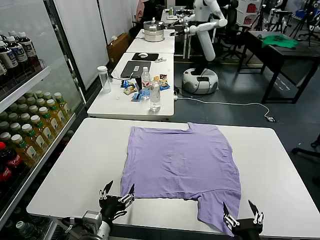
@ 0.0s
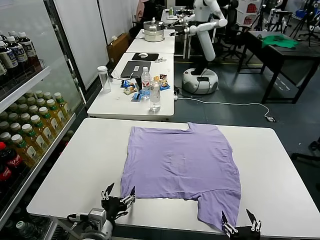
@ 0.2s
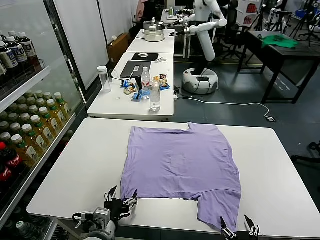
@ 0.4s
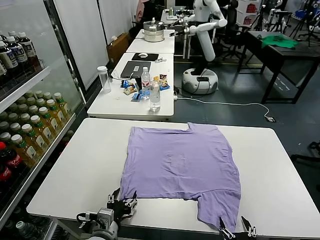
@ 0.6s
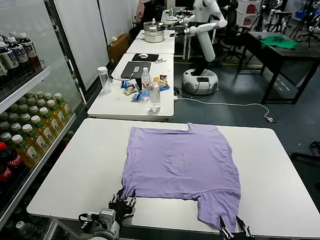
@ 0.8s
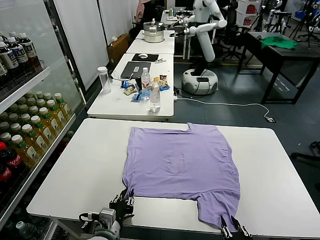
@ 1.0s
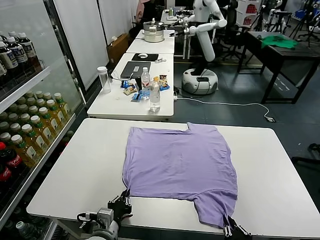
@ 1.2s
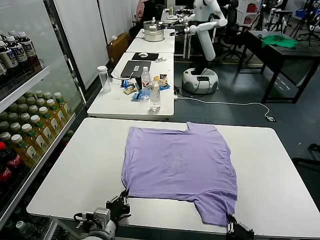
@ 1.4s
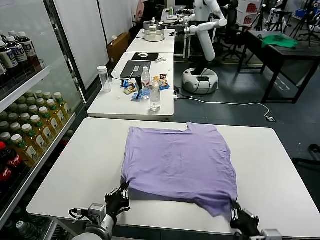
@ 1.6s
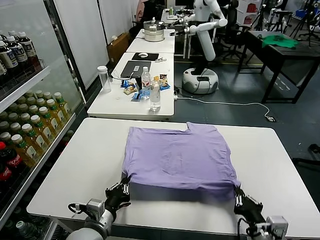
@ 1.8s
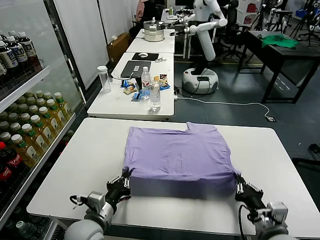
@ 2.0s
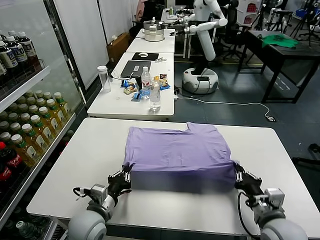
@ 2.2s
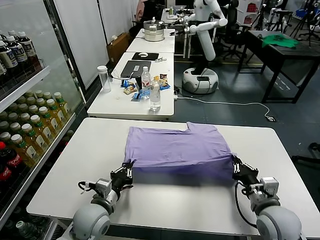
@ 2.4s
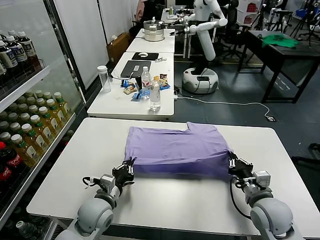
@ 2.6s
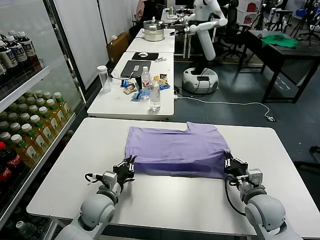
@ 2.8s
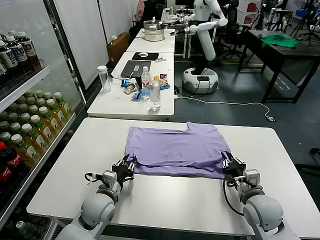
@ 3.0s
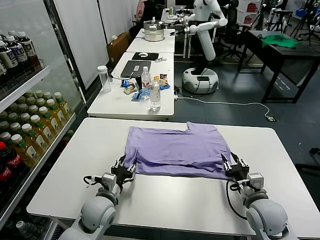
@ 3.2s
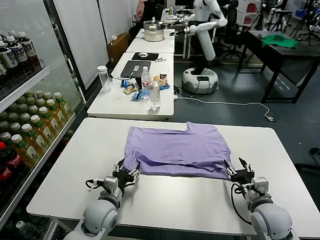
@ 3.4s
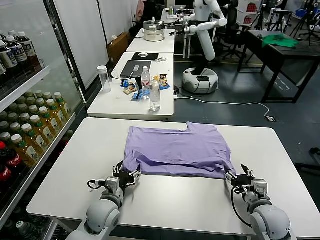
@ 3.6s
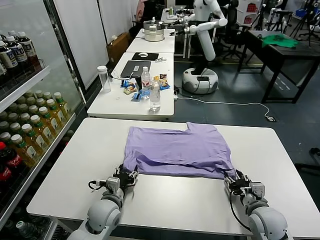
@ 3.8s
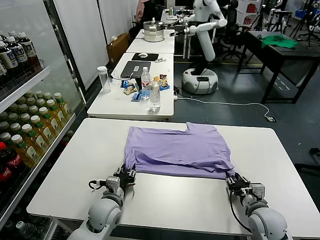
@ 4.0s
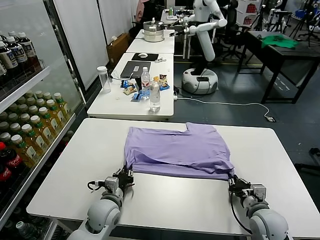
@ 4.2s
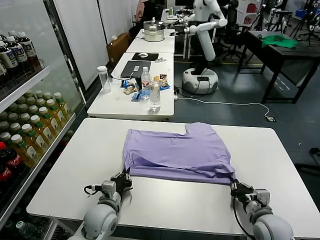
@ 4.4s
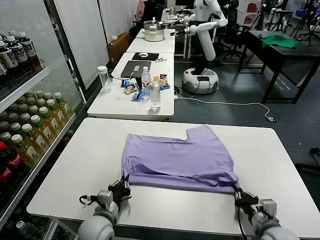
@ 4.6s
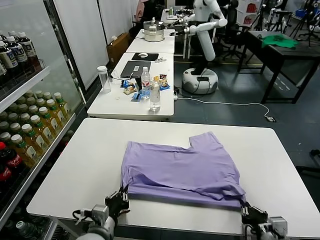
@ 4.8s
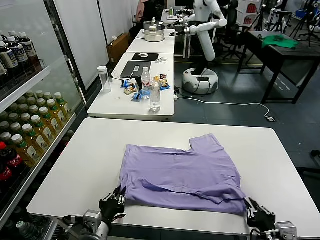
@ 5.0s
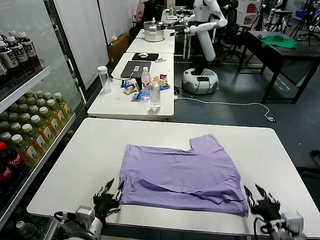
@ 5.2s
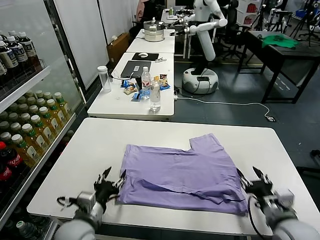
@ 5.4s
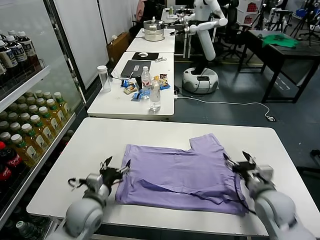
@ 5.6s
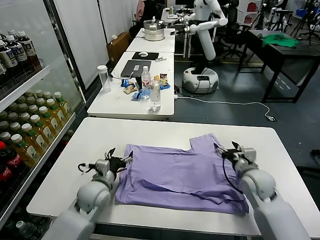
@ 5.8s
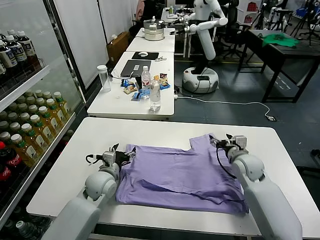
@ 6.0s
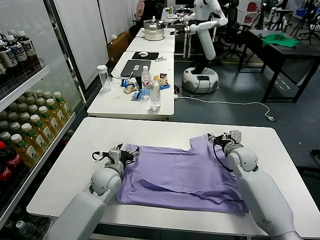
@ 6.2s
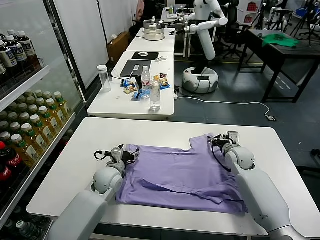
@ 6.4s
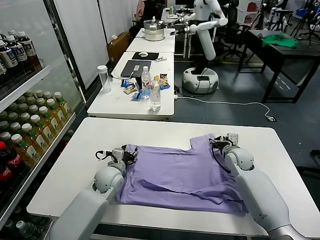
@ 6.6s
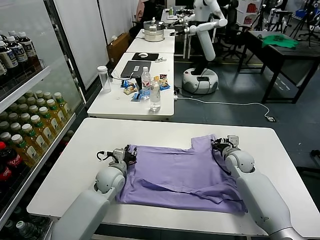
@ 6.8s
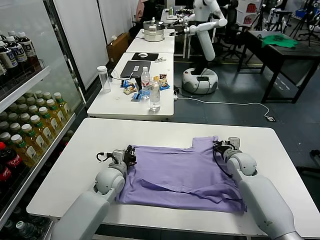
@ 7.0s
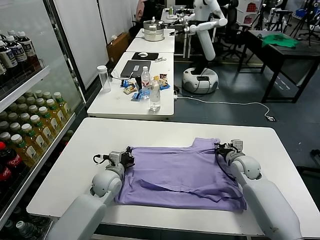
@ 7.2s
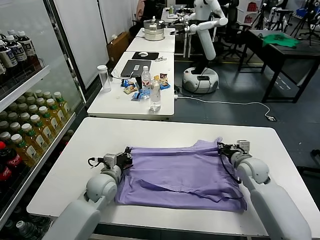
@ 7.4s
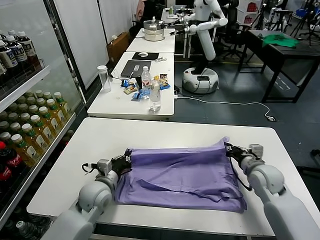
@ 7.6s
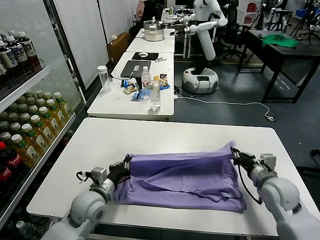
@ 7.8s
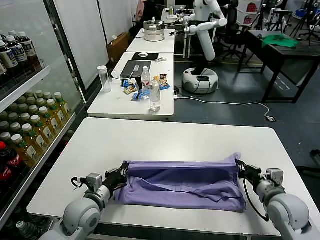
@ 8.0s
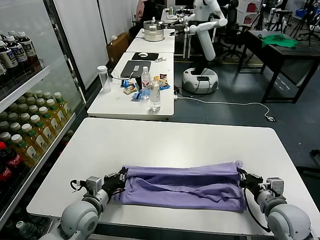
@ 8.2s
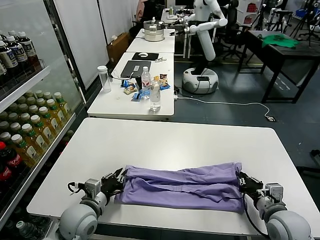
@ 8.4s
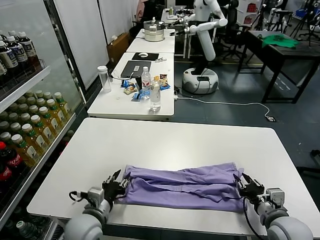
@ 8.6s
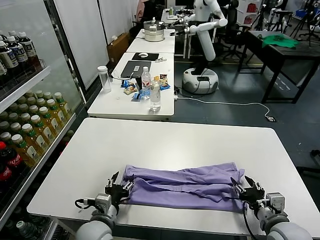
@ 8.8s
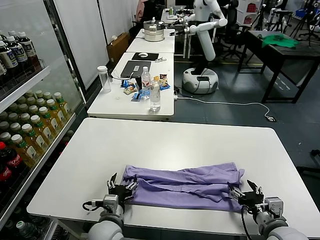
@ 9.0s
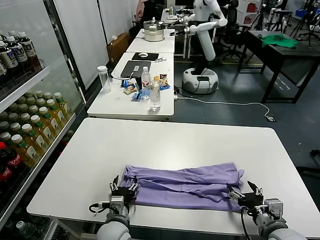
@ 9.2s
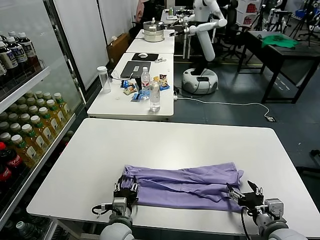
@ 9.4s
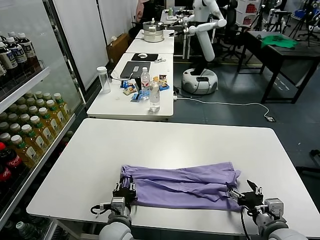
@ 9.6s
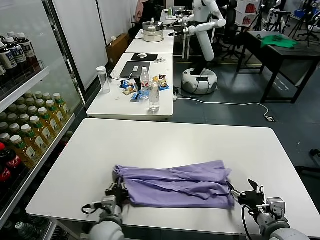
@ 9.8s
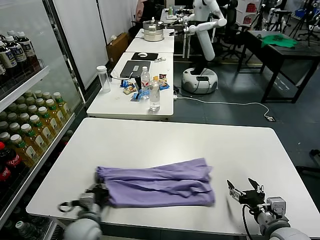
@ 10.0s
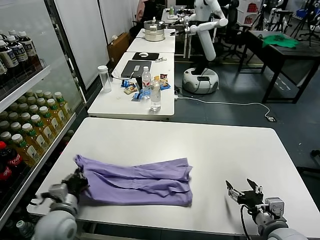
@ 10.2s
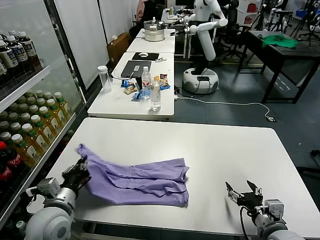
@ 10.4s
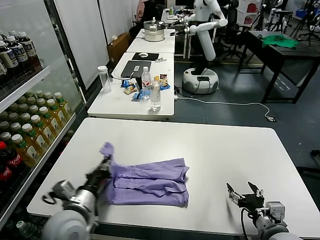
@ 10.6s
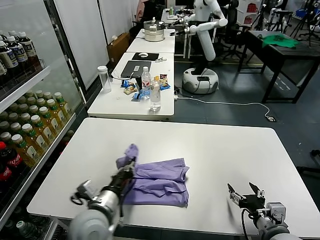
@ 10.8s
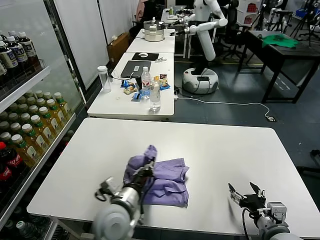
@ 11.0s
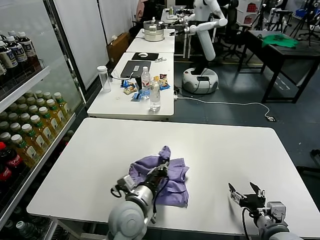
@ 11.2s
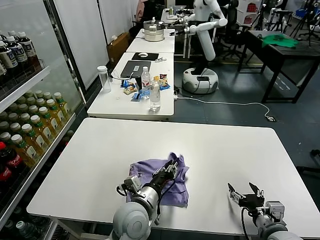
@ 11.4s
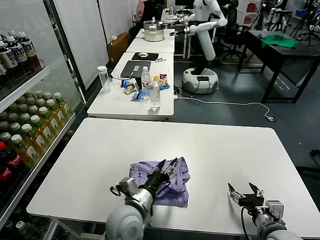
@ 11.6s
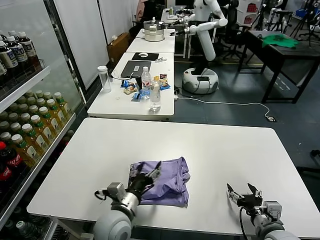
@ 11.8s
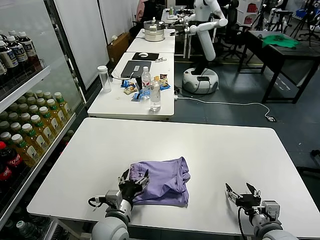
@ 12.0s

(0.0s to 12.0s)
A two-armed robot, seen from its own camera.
Task of the whole recording: fold and organize the clothes.
Step, 0.0s - 1.2s: use both grippers simultaneously to clamp the lower edge of the clothing fabric.
Step, 1.4s - 3.2s: use both grippers to drag the lower edge of the fabric forward and fold it over the upper edge.
Step, 3.4s - 5.0s: Drag the clothes downward with both gripper.
Step, 5.2s - 7.0s: use both grippers simultaneously to clamp the upper edge of the clothing fabric.
Step, 7.4s - 8.6s: use both grippers to drag the upper edge of the fabric backward and fold it over the lower edge.
Step, 8.8s - 9.6s: use the left gripper to clamp the left edge of the fabric.
Step, 9.8s - 11.6s: use the left gripper to drag the left edge of the fabric to the left and folds it over the right edge.
1.6s - 3.0s: The grippers both shift forward by approximately 15 cm. The right gripper opens its fingers. Meanwhile the left gripper opens.
3.0s - 4.4s: The right gripper is displaced backward by approximately 5 cm, and closes up, while the left gripper closes.
4.4s - 6.0s: The right gripper travels forward by roughly 25 cm, and opens up; the left gripper travels forward by about 10 cm, and opens its fingers.
6.0s - 7.6s: The right gripper goes about 10 cm backward, and closes its fingers, while the left gripper closes up.
7.6s - 9.0s: The two grippers go approximately 15 cm backward. The right gripper opens. The left gripper opens its fingers.
9.0s - 10.4s: The left gripper shifts some 15 cm to the left and upward, and closes its fingers.
10.4s - 12.0s: The left gripper goes some 15 cm to the right and downward, and opens up.

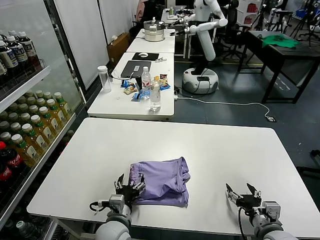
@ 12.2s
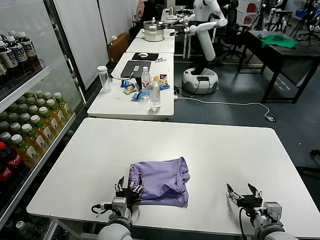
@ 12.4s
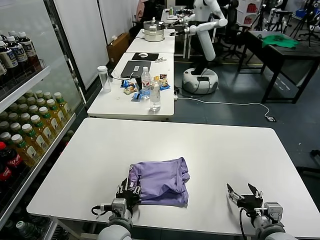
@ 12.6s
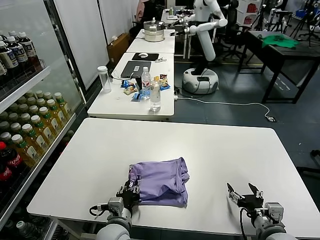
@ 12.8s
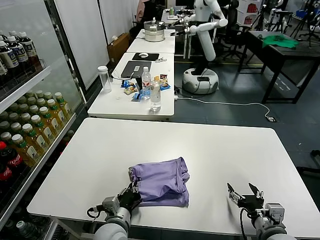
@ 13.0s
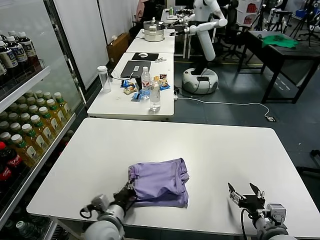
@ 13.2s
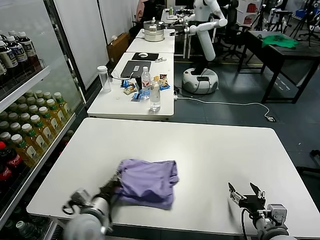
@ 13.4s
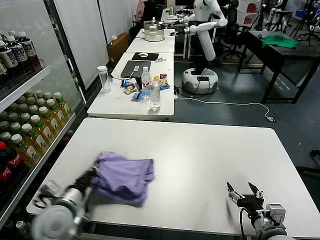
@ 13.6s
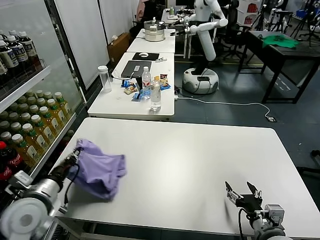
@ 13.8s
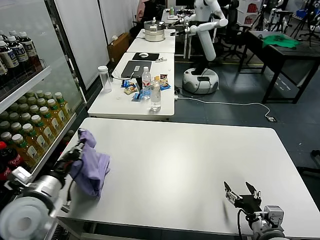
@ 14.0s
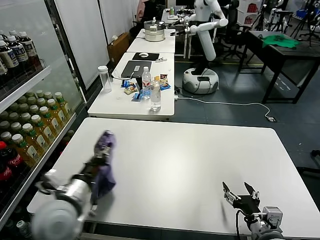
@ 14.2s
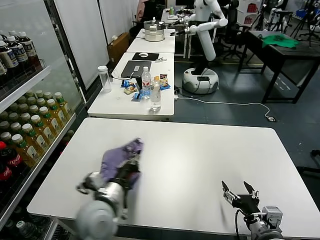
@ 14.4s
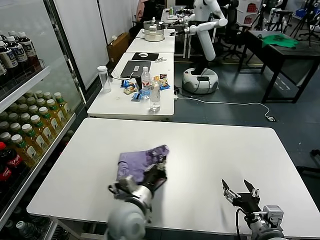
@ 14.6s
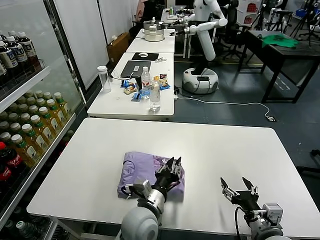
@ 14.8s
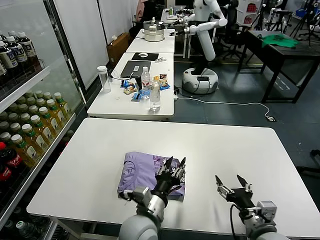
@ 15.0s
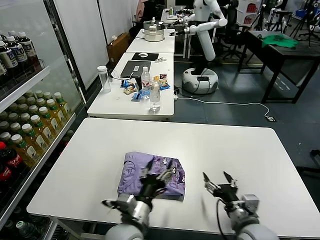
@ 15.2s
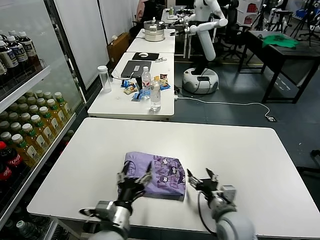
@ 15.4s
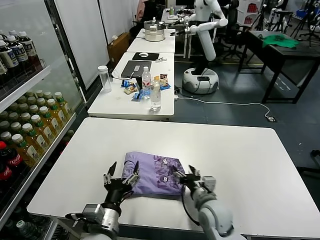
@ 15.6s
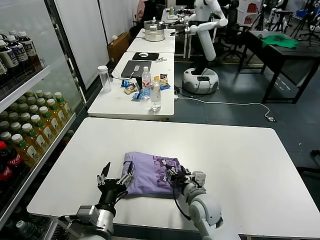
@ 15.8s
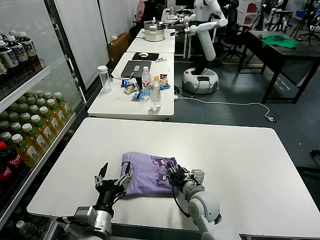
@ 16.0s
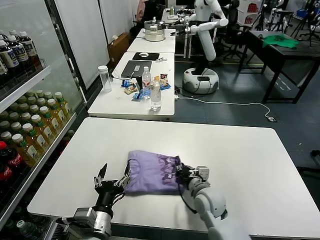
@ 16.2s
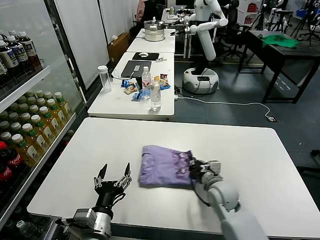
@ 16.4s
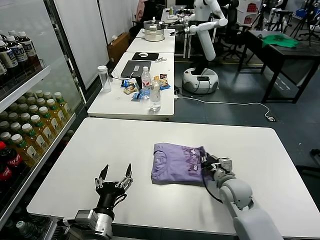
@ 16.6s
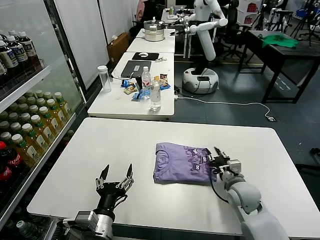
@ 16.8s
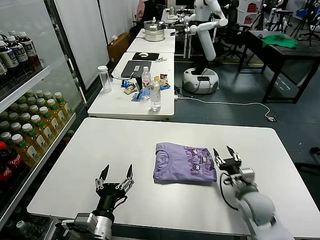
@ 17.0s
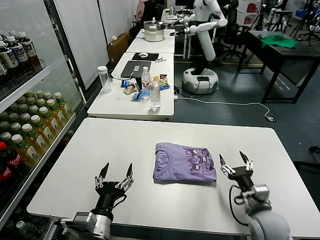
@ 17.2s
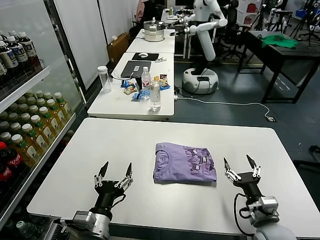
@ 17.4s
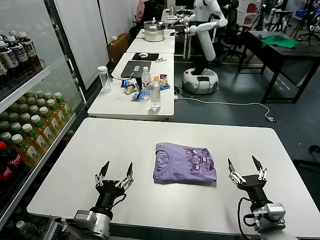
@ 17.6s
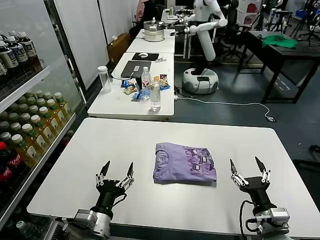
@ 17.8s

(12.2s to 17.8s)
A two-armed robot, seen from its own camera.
Task of the whole recording: fold and organize the clothes.
Step, 12.2s - 15.0s: Flip the folded clothes over with left gripper.
Step, 15.2s - 17.0s: Drag the clothes to the center of the table.
12.2s - 13.6s: The left gripper shifts about 15 cm to the left and upward, and closes up.
13.6s - 15.0s: The left gripper moves to the right, roughly 20 cm, and opens.
15.0s - 16.4s: The left gripper travels to the left and backward by approximately 15 cm, and opens. Meanwhile the right gripper travels forward and to the left by approximately 20 cm, and closes its fingers.
16.4s - 17.8s: The right gripper travels backward and to the right by some 20 cm, and opens up.

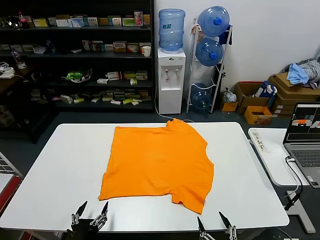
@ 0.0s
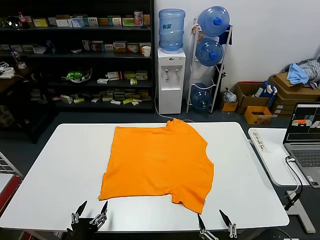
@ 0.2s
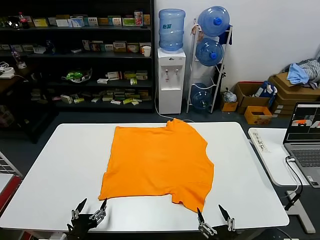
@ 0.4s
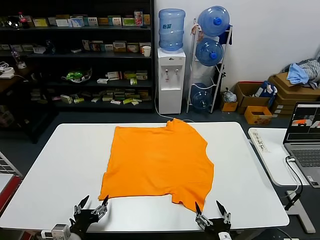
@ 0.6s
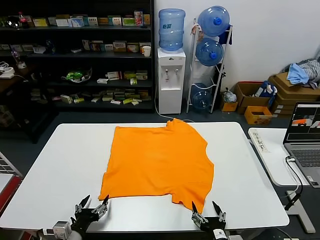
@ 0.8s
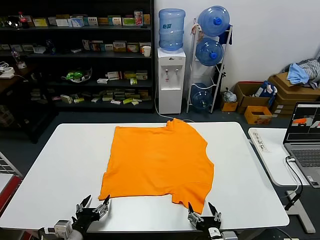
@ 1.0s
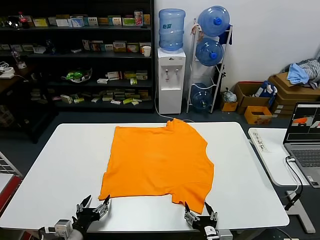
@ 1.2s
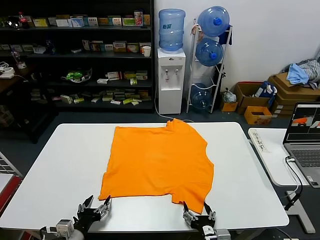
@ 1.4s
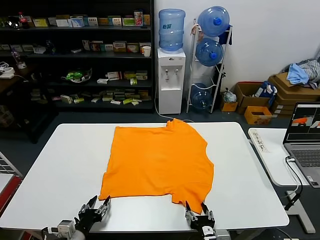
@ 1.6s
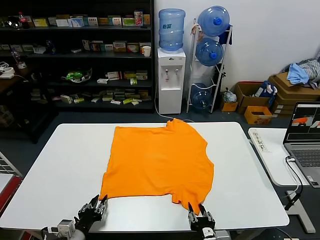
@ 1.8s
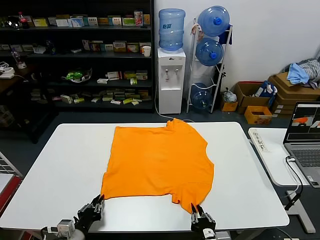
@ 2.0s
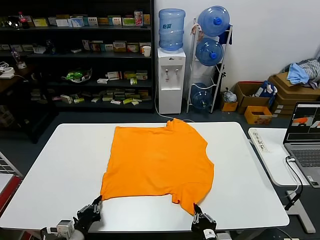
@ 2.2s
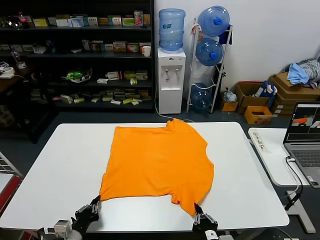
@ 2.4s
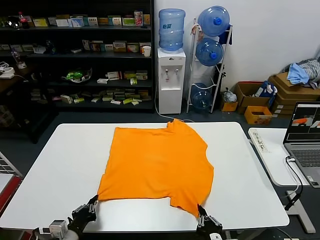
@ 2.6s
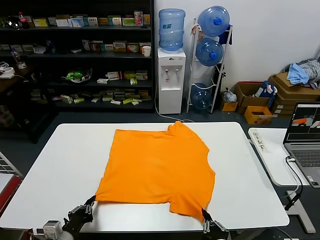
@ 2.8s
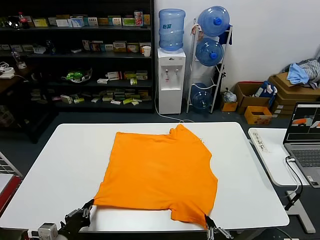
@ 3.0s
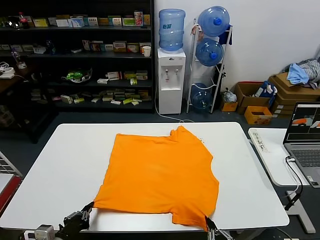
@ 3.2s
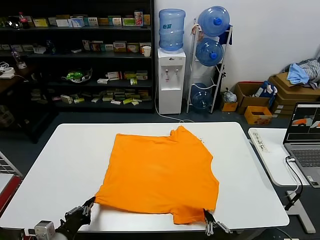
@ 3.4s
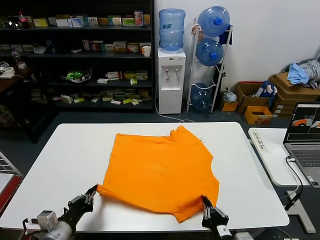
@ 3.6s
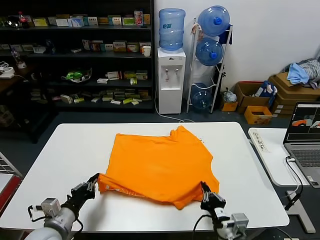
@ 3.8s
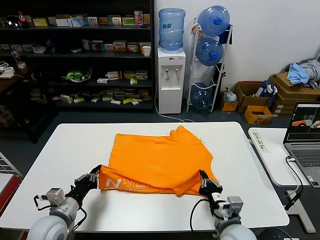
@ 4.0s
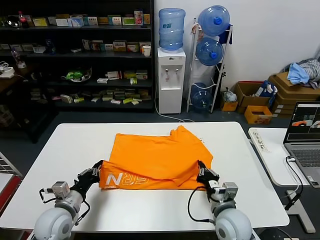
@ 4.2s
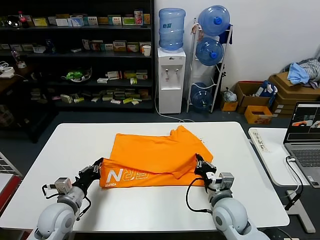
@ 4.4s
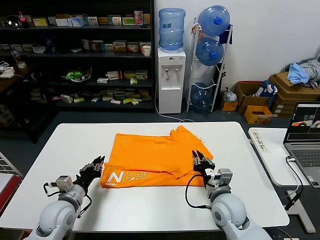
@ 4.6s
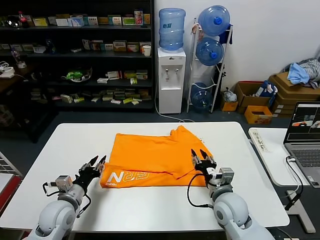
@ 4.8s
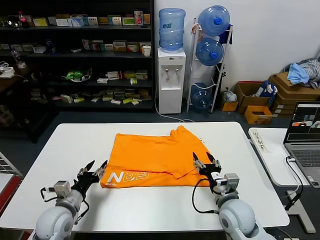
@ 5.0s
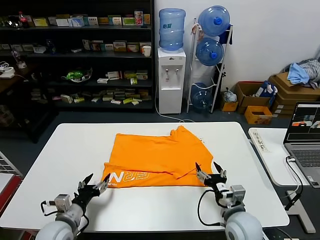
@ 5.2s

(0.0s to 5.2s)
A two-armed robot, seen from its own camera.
Task of the whole recording: fold and organize the clothes.
Step, 0.0s - 3.0s: use both grippers simultaneously to clamp the lower edge of the clothing fabric.
Step, 3.2s - 4.6s: use both grippers to drag the lower edge of the fabric forward and fold it over the upper edge.
1.8s - 3.4s: Both grippers move upward, about 5 cm. The right gripper closes its fingers. The left gripper closes its fingers.
3.4s - 5.2s: The left gripper travels forward and downward by about 10 cm, and opens up. The right gripper is displaced forward by approximately 15 cm, and opens its fingers.
